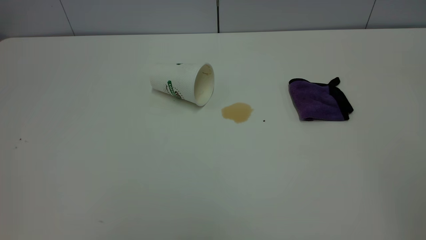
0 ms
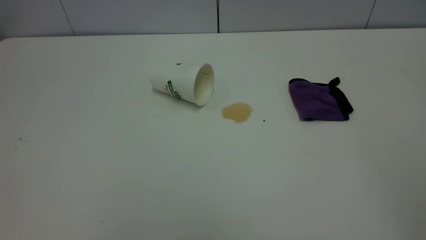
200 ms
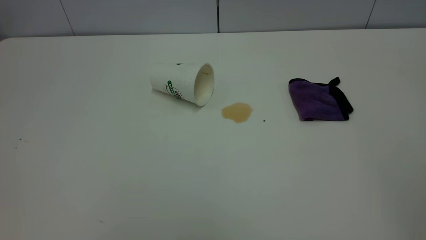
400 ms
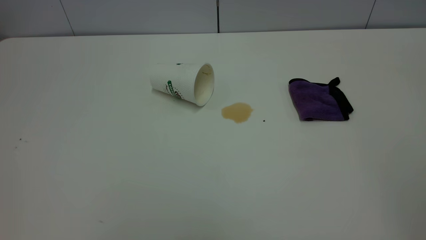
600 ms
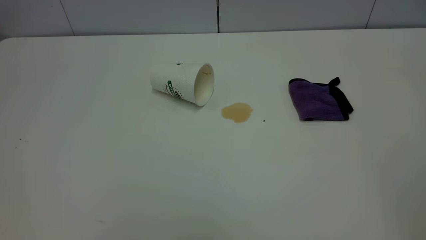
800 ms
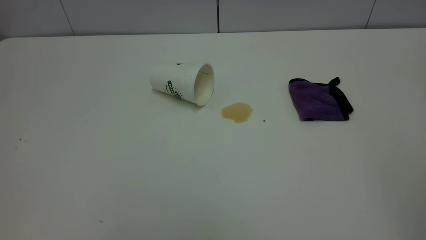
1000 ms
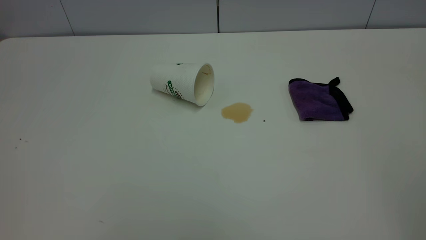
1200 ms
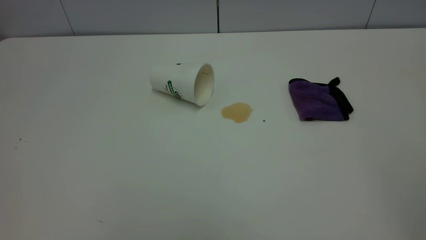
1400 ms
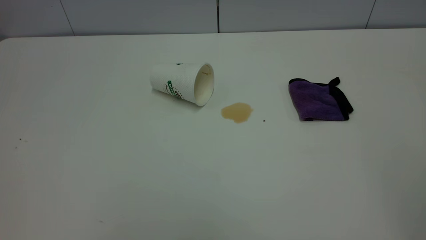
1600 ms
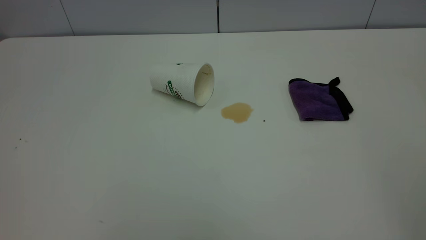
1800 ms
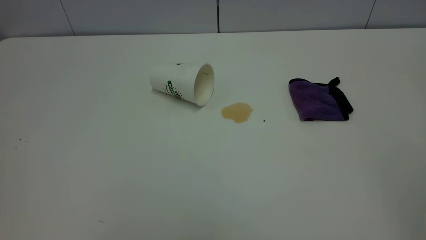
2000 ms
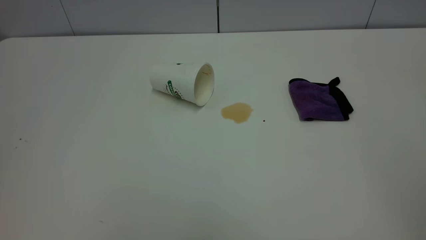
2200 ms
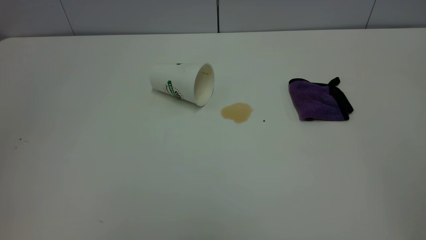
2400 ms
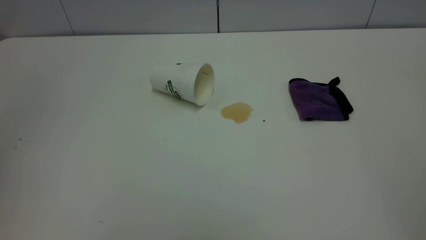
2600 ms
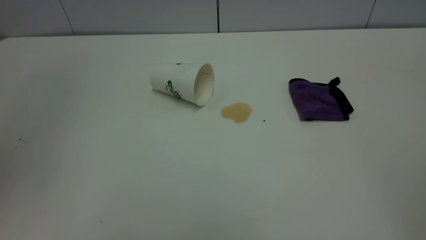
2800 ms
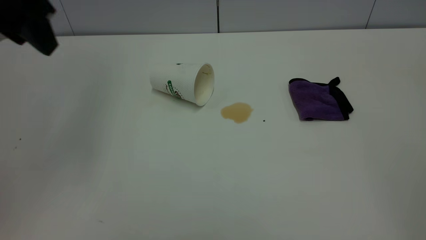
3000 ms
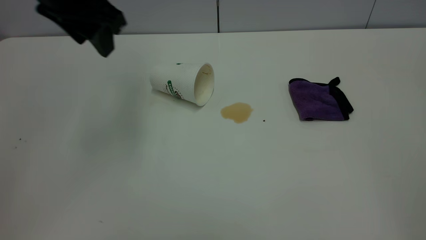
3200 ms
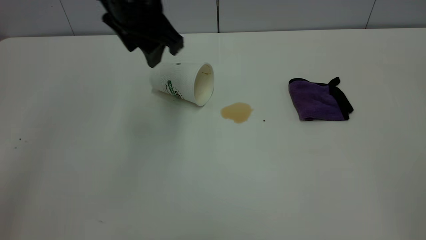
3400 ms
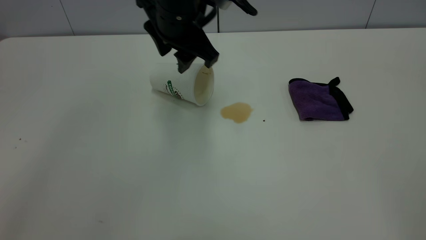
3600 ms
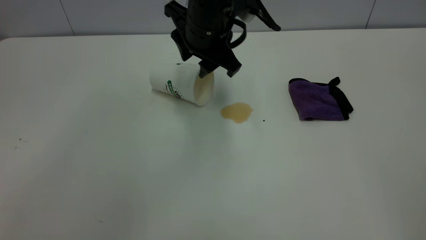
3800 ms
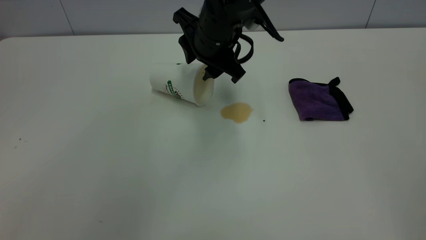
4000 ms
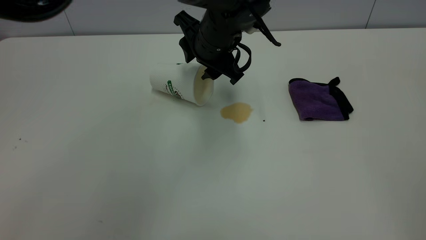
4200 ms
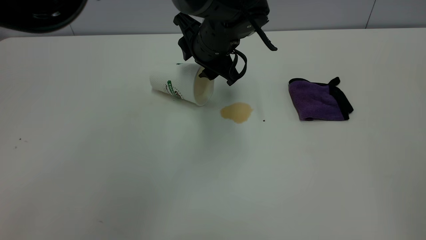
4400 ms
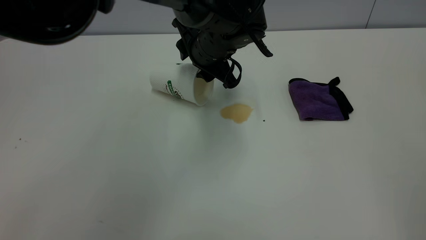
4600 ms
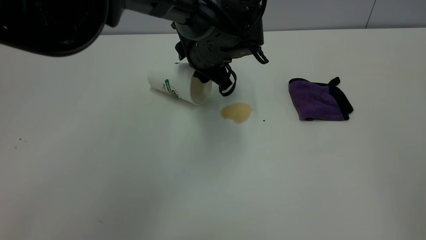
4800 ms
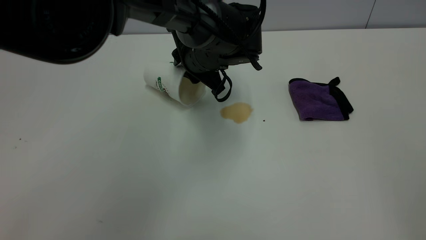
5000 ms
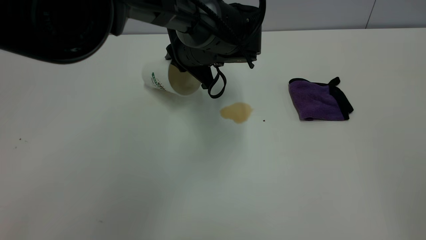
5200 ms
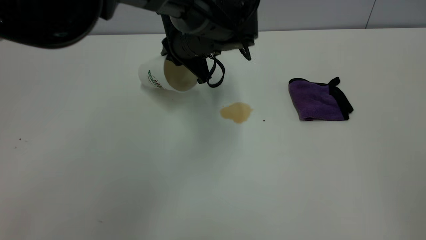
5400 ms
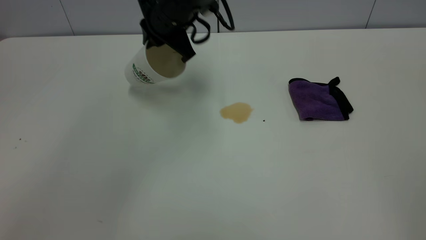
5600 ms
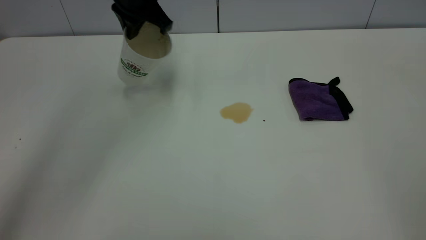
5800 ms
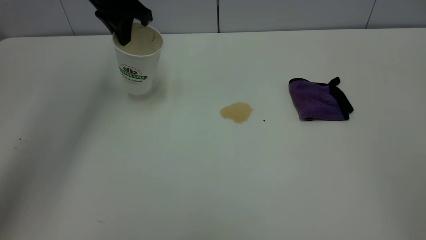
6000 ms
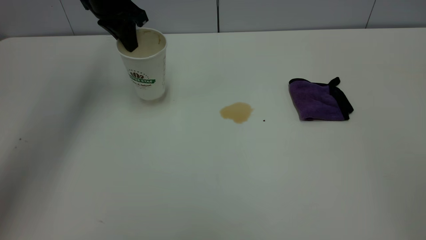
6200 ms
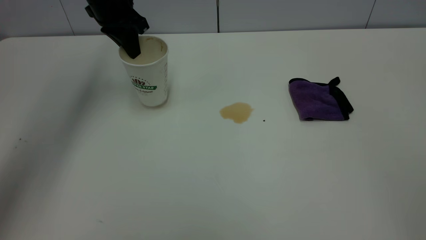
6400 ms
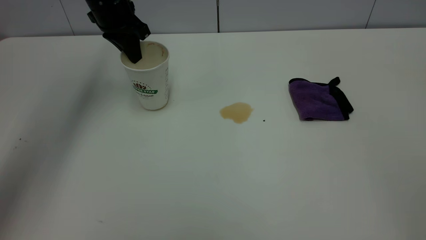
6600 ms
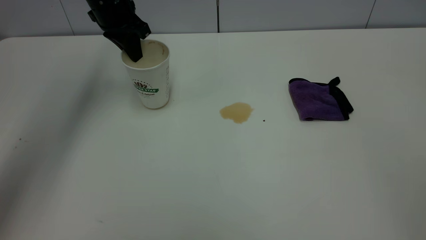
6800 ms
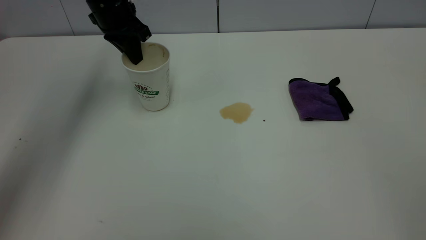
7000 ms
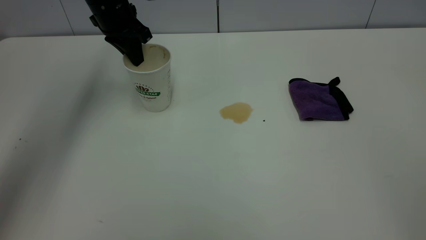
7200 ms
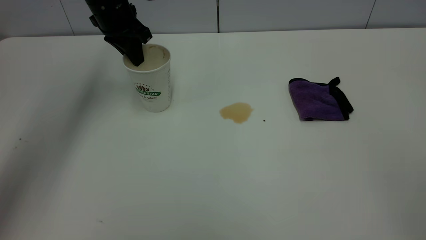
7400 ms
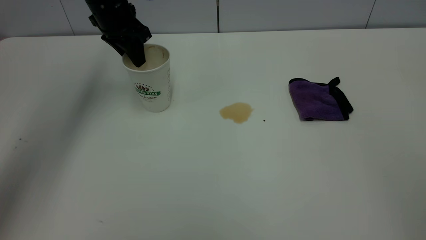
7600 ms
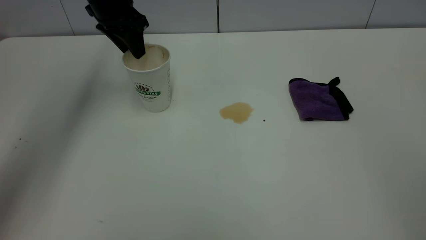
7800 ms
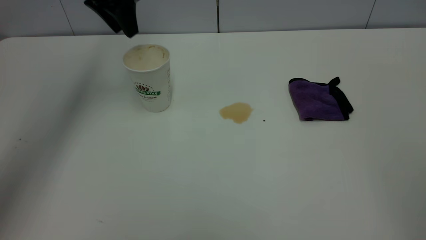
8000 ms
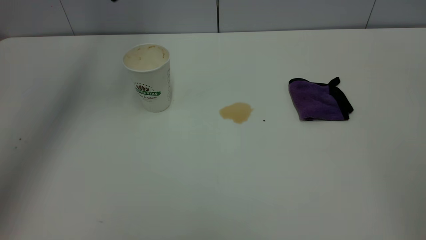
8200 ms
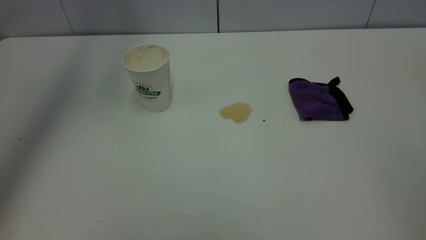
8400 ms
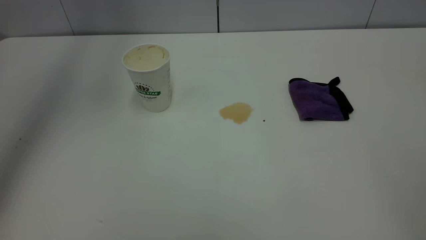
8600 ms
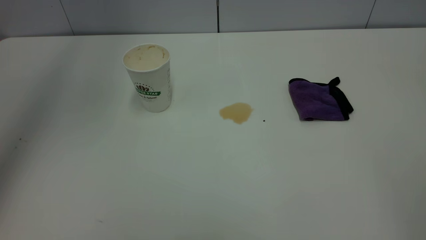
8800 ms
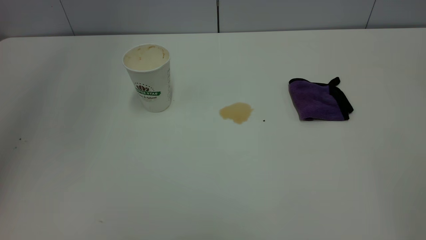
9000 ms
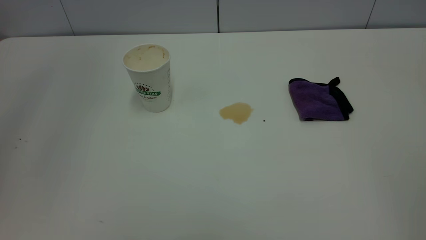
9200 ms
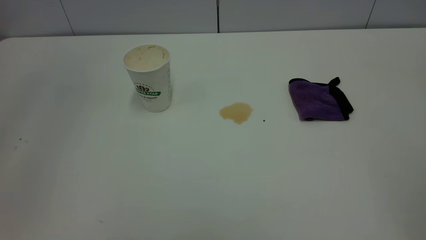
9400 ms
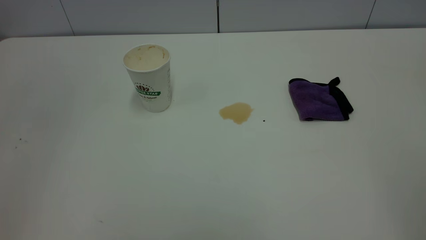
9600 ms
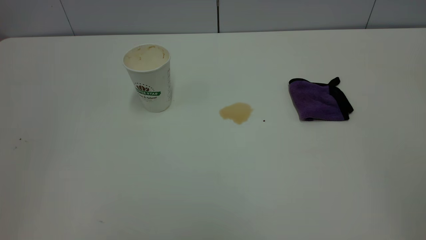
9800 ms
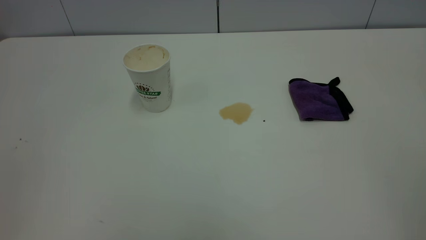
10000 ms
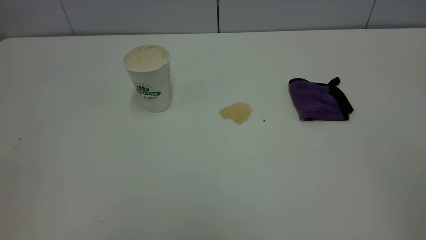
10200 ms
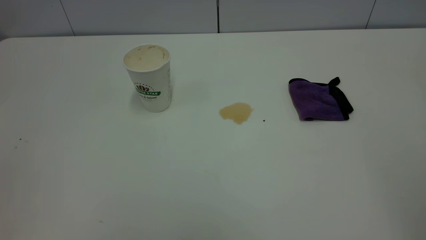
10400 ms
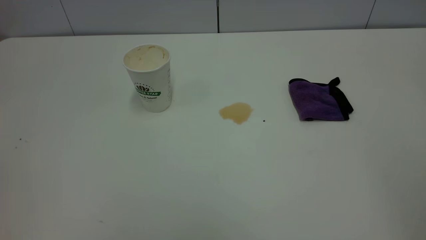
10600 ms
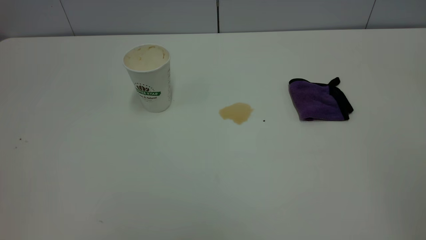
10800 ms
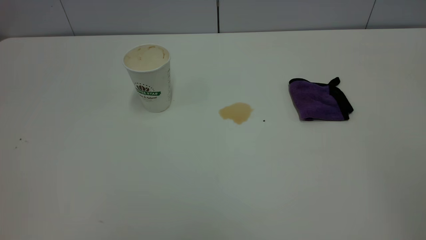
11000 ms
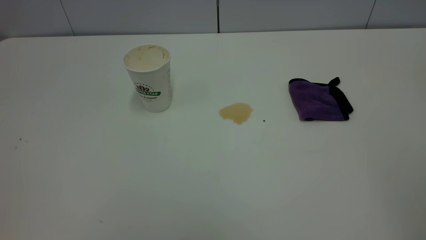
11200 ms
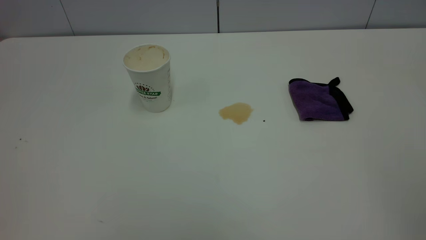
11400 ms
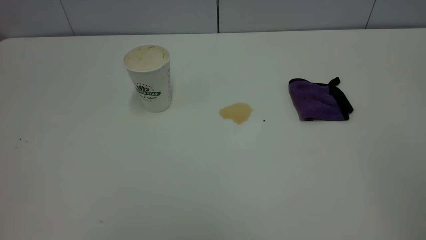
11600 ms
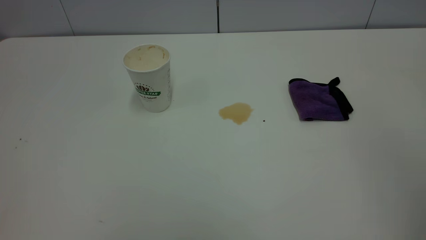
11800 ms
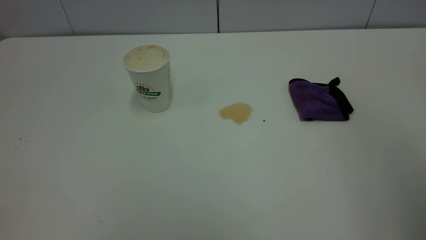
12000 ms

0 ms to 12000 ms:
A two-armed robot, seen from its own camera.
Task of the whole recording: the left gripper pick up the fallen cup and place it upright, the right gripper grasp the purple rag and wipe the tea stain on the table, the right gripper put the purple rag back in its original position.
Step, 0 ms to 7800 ms: Stand the paper cup upright.
0 ms to 1600 ms: Both grippers stay put.
1600 ms to 3000 ms: The left gripper is displaced forward by roughly 35 cm.
3000 ms to 4400 ms: The left gripper moves to the right, downward and forward, approximately 30 cm.
4400 ms to 6000 ms: The left gripper shifts roughly 20 cm to the left, upward and forward, and closes.
6000 ms to 7600 ms: The left gripper opens.
7600 ms to 9000 ms: The left gripper travels upward and backward by roughly 30 cm.

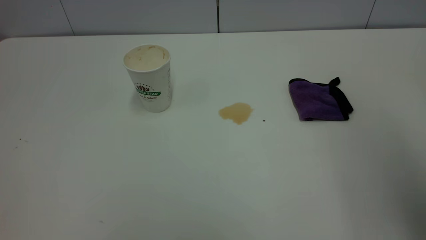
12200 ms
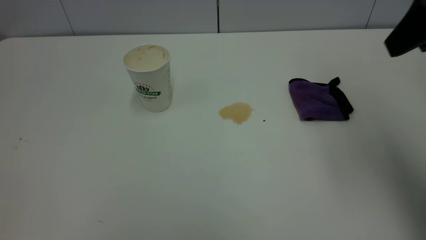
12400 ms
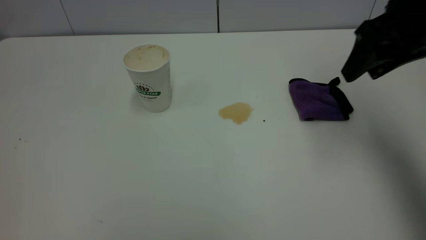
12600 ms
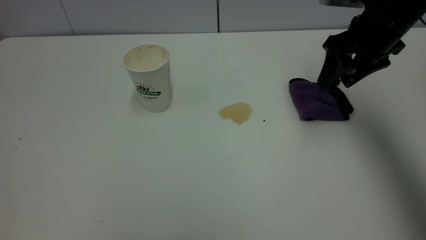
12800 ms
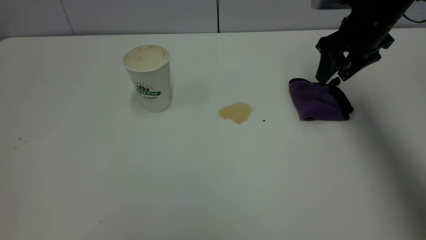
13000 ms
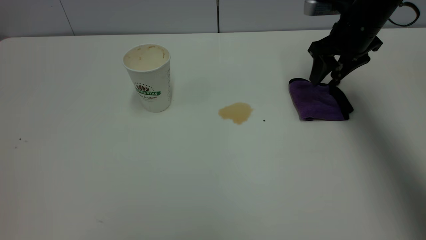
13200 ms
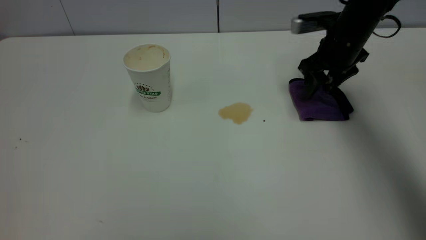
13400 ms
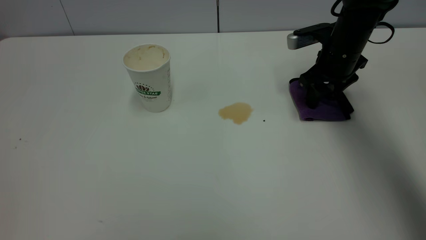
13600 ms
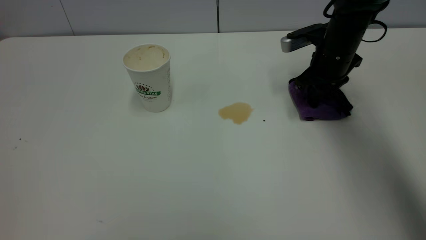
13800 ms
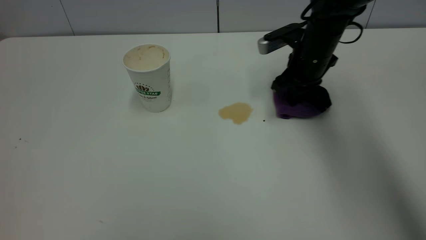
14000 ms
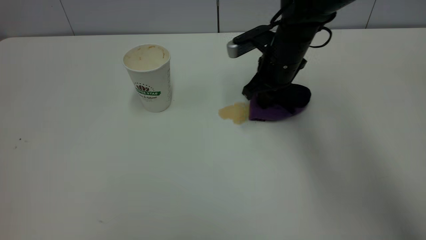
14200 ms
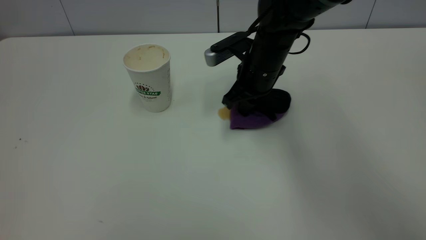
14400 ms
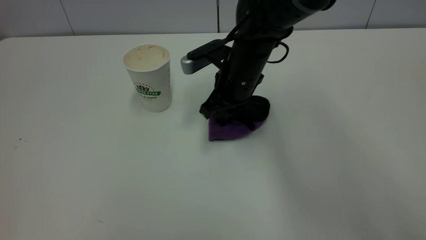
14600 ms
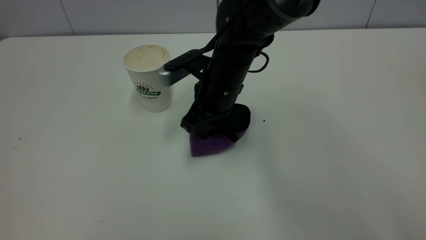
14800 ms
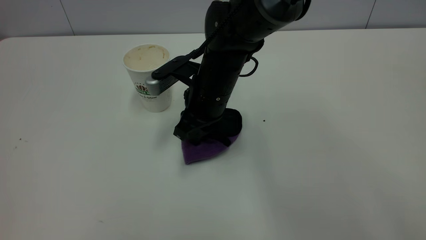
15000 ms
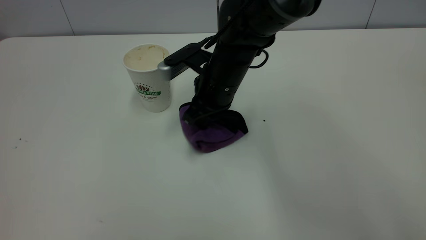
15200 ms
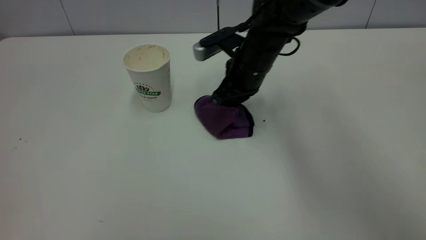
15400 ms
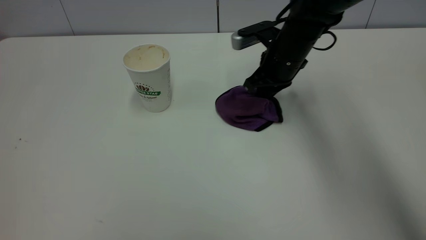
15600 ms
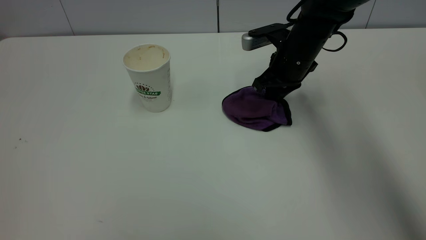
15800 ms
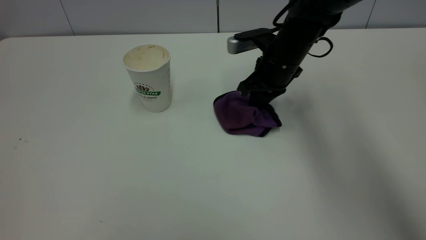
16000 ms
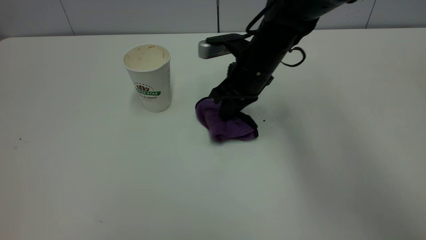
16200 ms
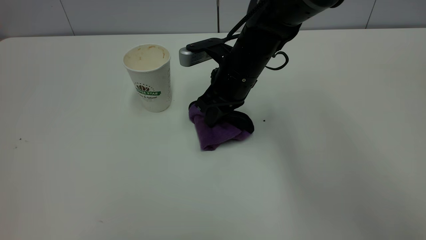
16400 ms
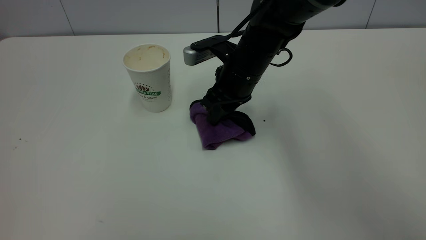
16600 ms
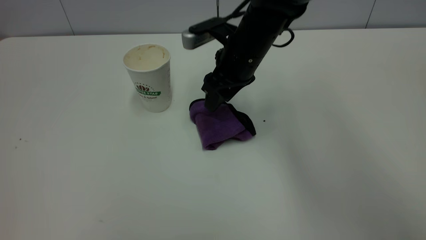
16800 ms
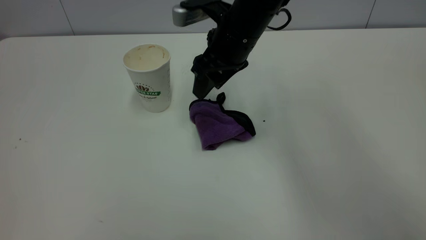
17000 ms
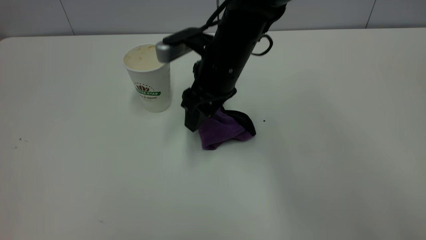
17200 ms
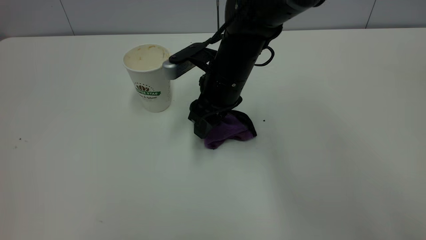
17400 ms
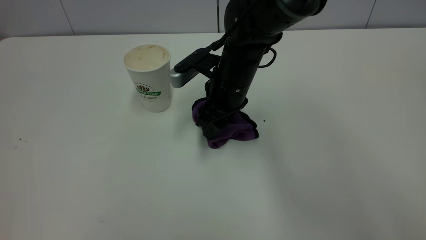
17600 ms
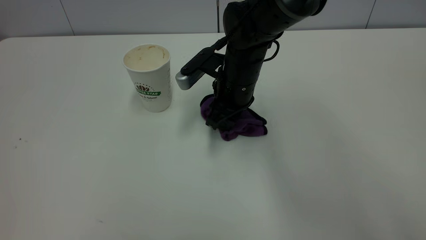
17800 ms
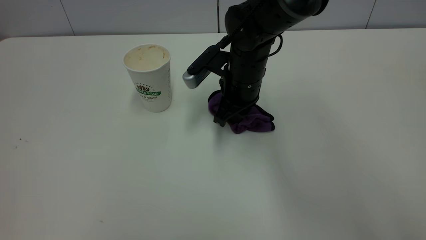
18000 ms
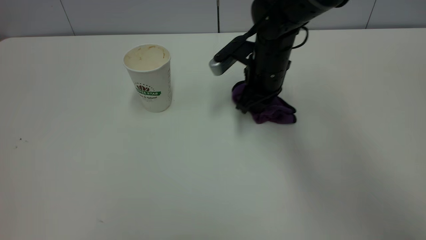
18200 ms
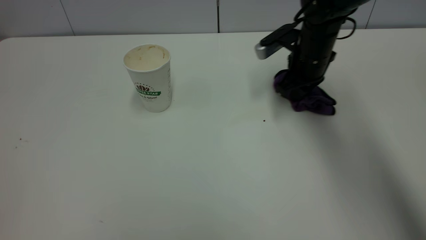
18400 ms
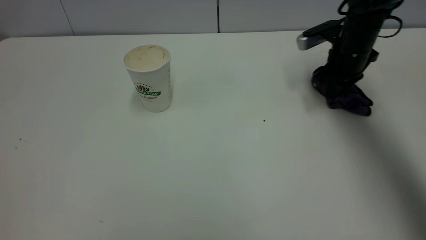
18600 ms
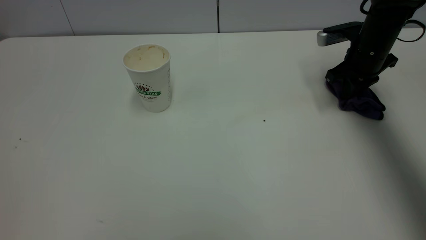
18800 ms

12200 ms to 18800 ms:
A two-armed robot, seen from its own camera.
Task of the whole recording: the left gripper pick up the fallen cup and place it upright, the right gripper grasp the purple rag and wipe the tea stain on the table, the right gripper put the purple rag back in its original position.
12200 ms to 13800 ms: The right gripper goes roughly 35 cm forward and downward, and closes.
13800 ms to 15400 ms: The right gripper heads to the left, covering some 15 cm.
15400 ms to 17200 ms: The right gripper heads to the left, covering some 5 cm, and opens.
17200 ms to 18800 ms: The right gripper moves to the right, about 25 cm, and closes its fingers.
